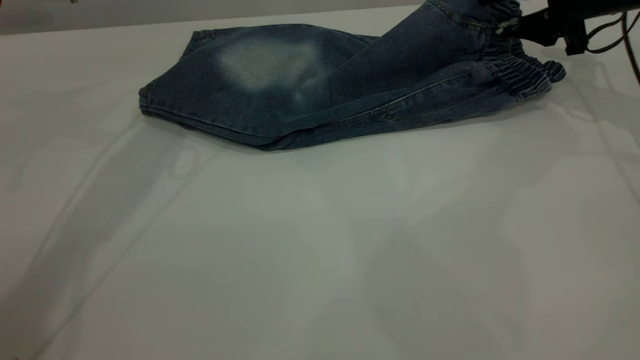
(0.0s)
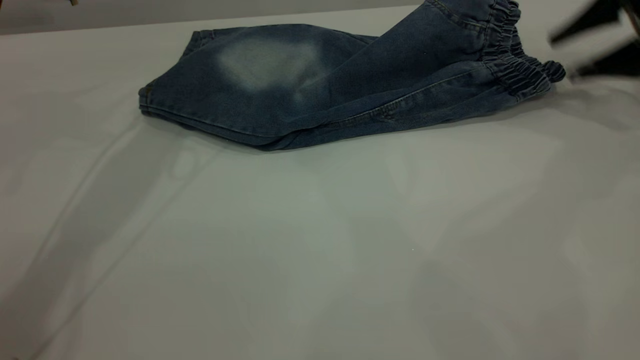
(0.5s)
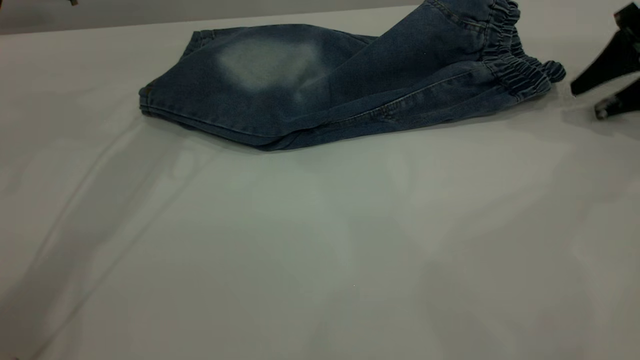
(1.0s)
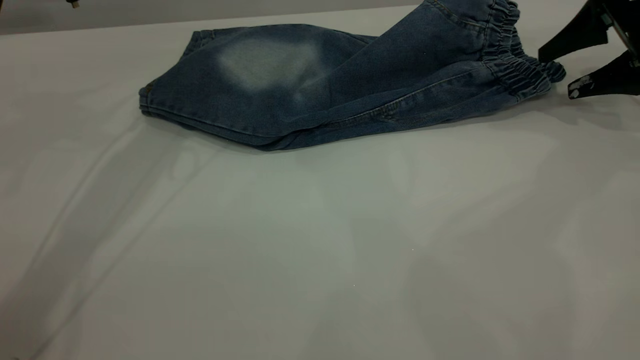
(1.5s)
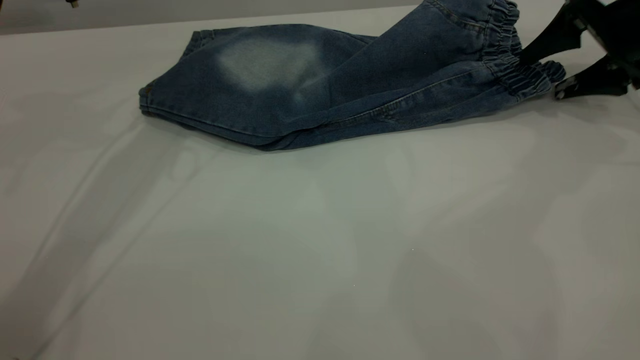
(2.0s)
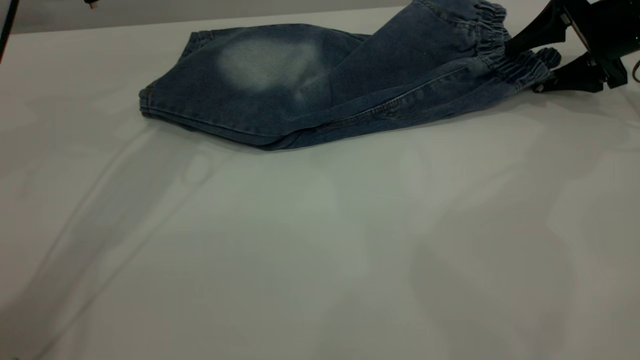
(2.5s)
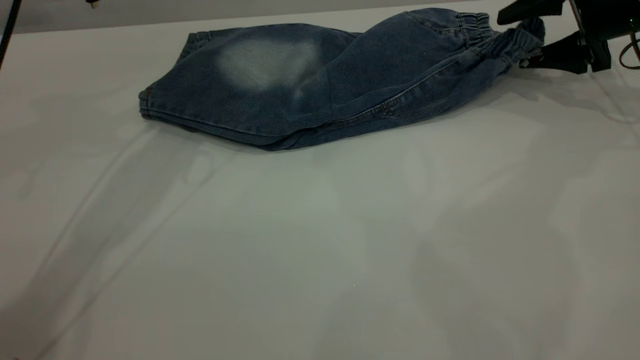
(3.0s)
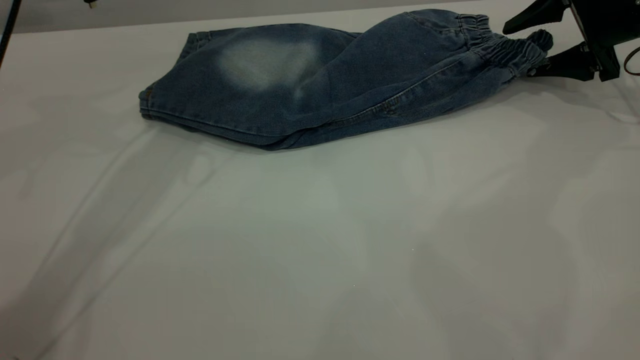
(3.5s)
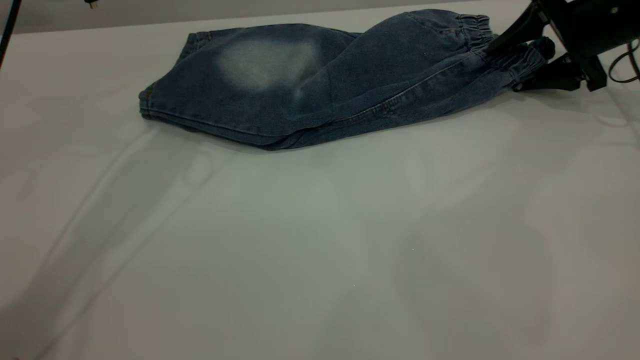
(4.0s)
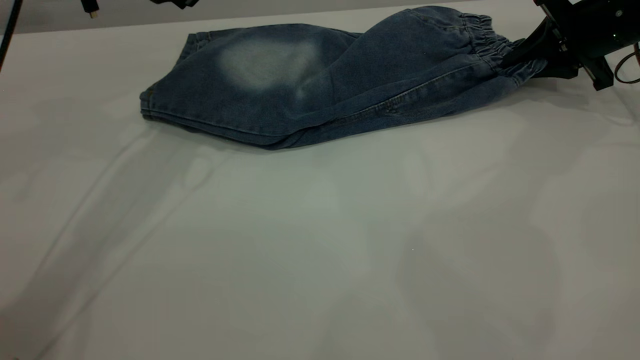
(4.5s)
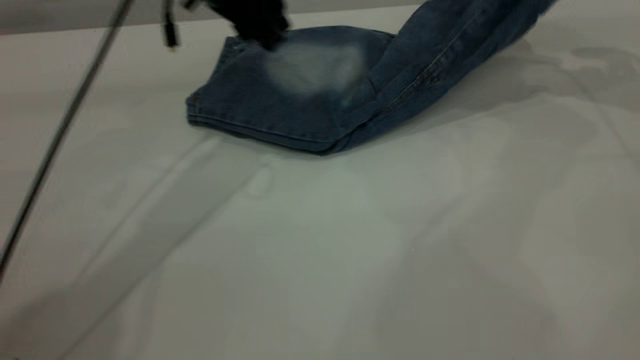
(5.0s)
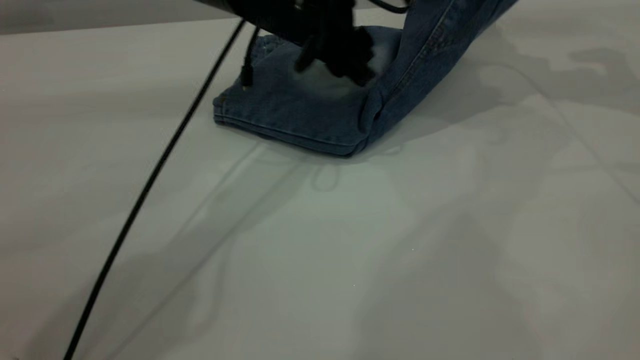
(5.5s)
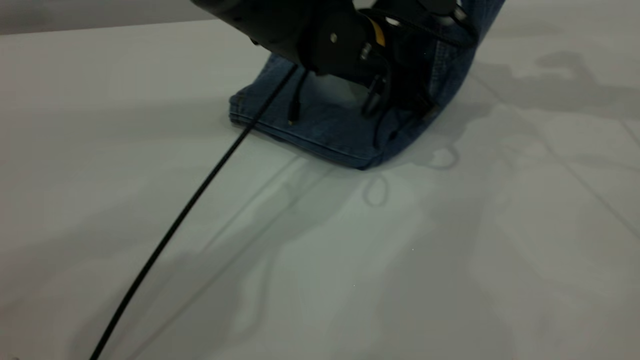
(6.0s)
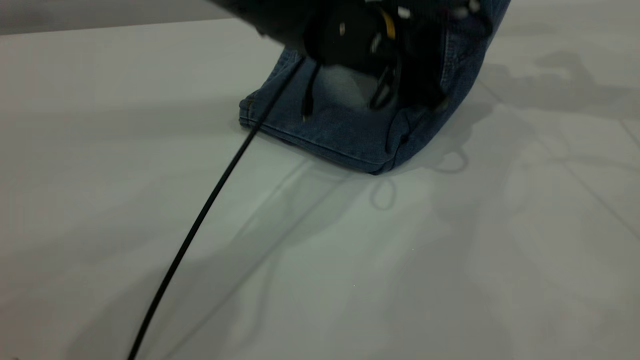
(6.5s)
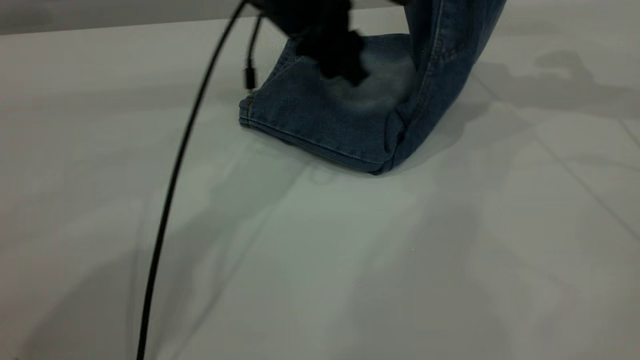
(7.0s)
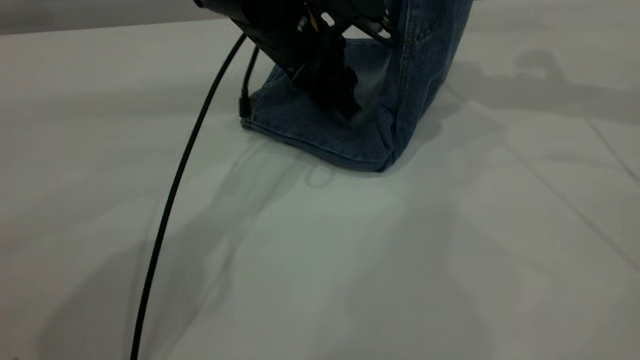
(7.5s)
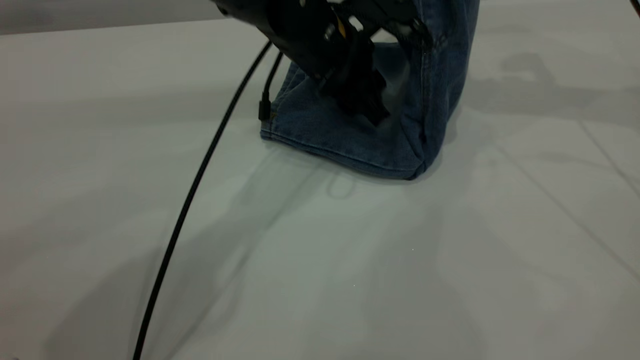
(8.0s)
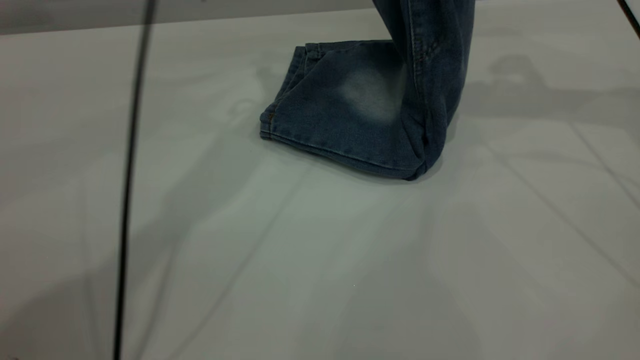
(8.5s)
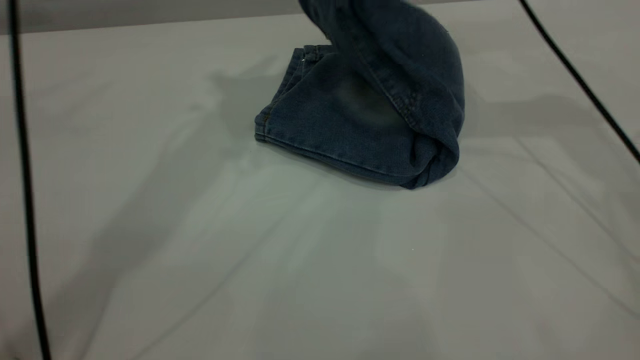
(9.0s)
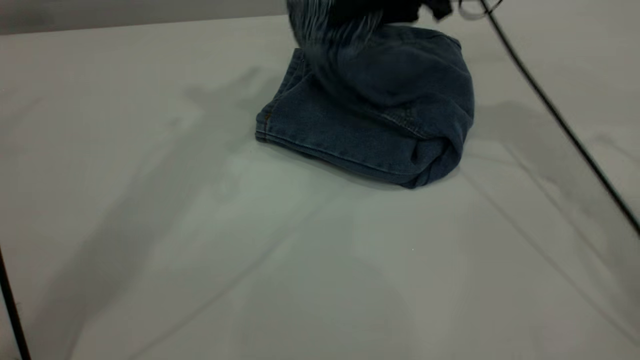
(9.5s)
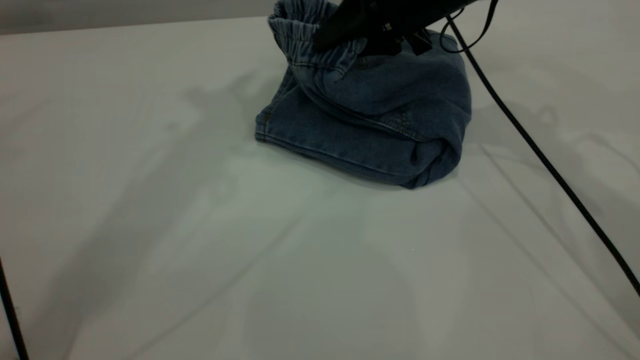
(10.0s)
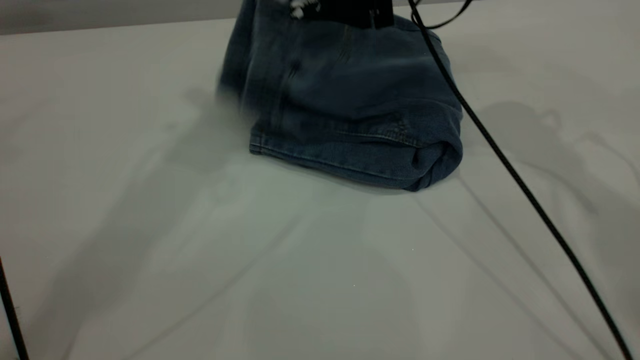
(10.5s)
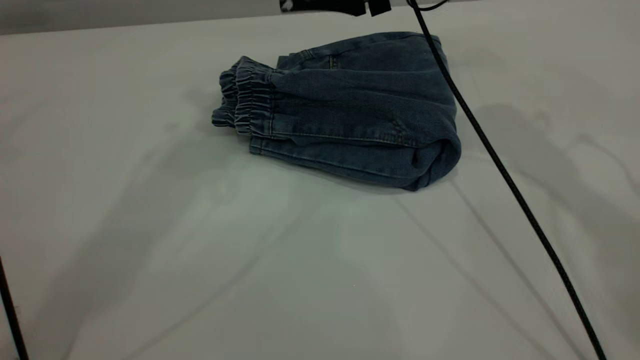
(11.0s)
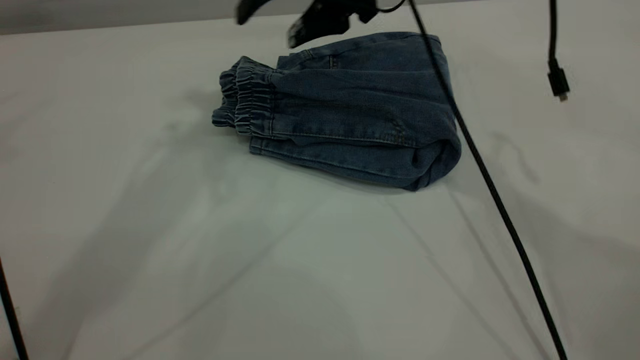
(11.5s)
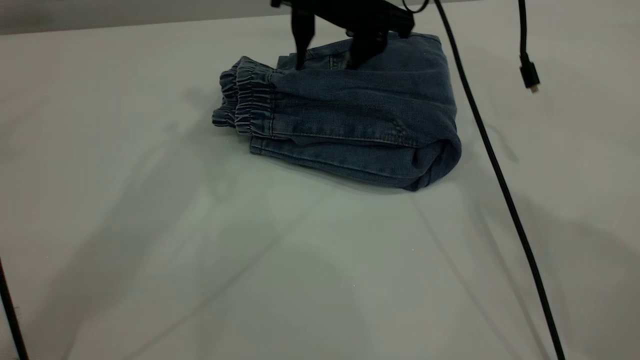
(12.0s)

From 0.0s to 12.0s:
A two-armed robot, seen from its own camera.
Step, from 0.0s to 10.5s: Fold your pants from right to left.
From 0.0s to 2.0s: The right gripper opens.
From 2.0s to 4.0s: The grippers make only small movements.
From 4.0s to 6.0s: The left gripper moves to the right and downward, some 25 cm. The right gripper shifts approximately 15 cm upward, and closes its fingers.
From 8.0s to 10.0s: The right gripper goes roughly 15 cm to the left and downward; the left gripper goes approximately 35 cm upward.
From 10.0s to 12.0s: The right gripper heads to the left, covering some 5 cm, and opens its fingers.

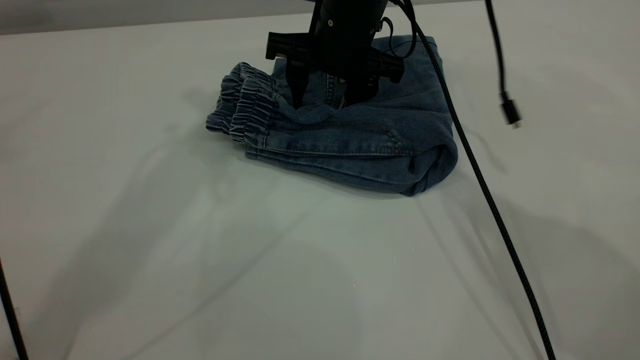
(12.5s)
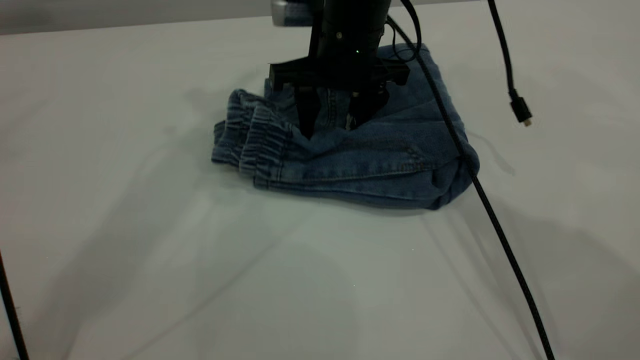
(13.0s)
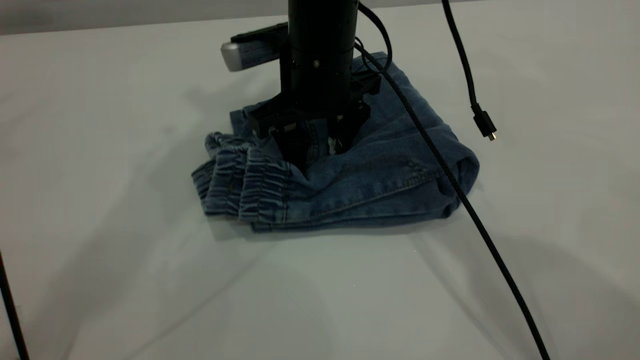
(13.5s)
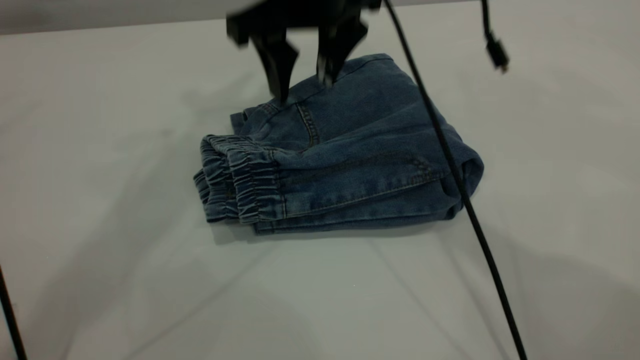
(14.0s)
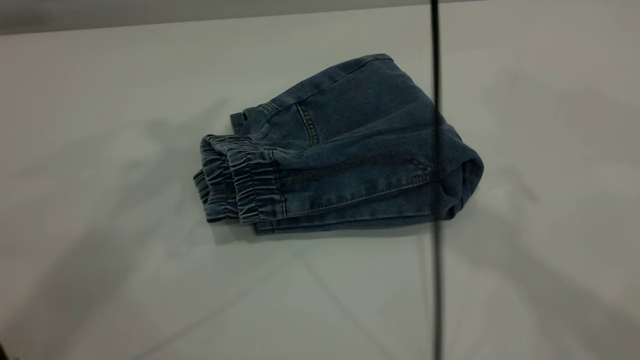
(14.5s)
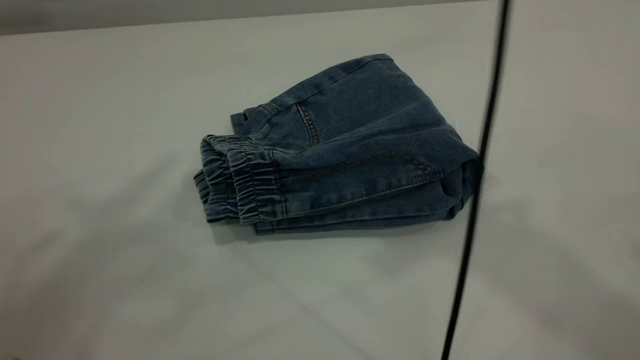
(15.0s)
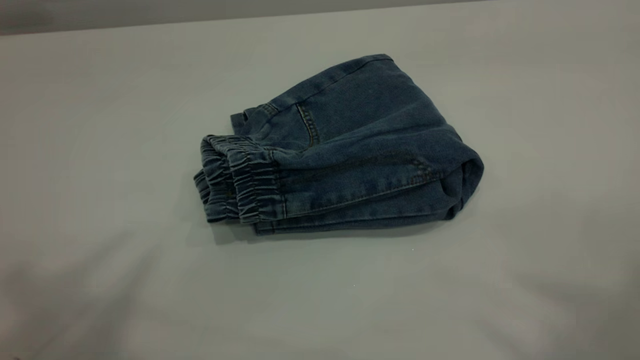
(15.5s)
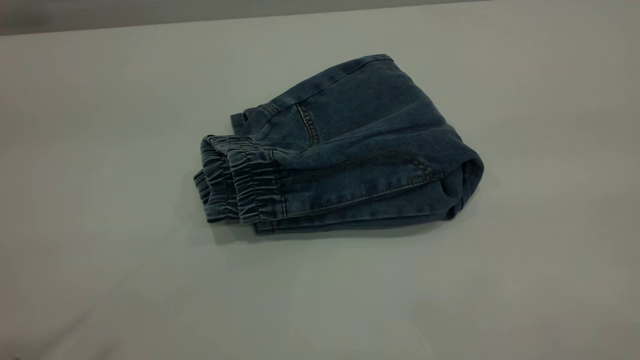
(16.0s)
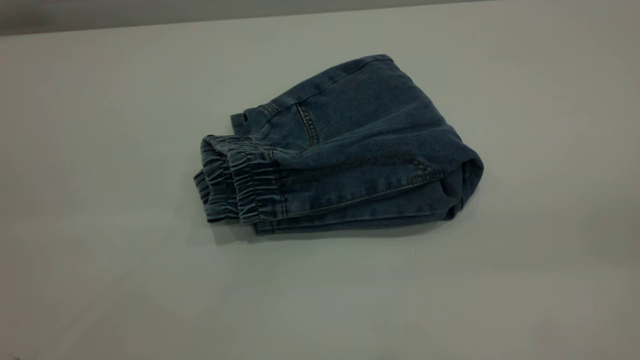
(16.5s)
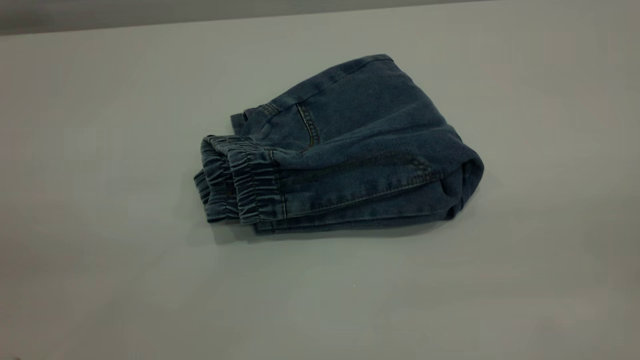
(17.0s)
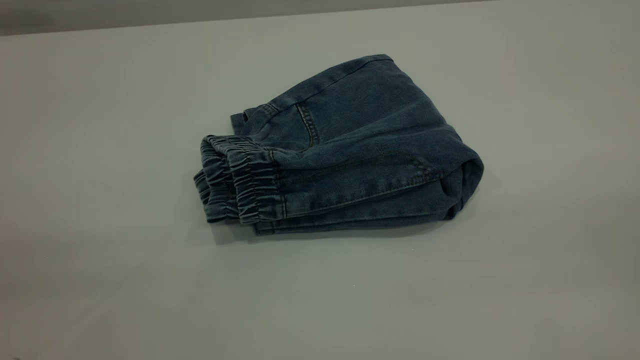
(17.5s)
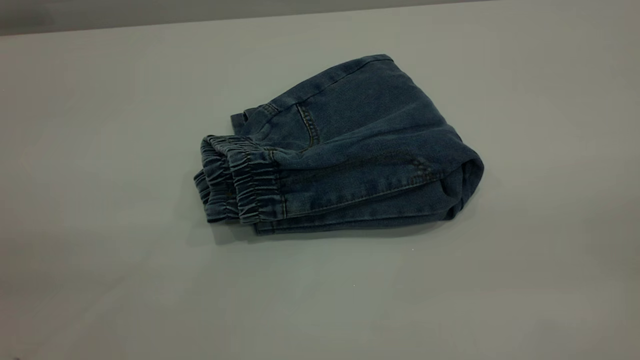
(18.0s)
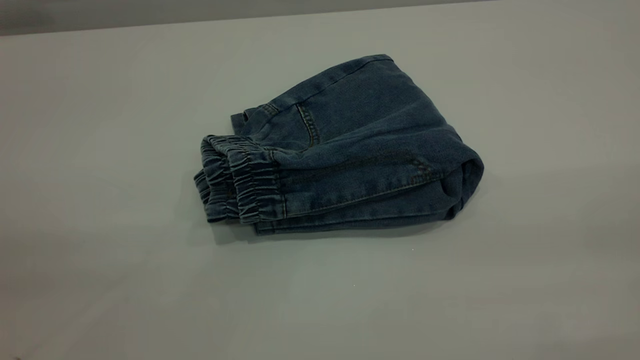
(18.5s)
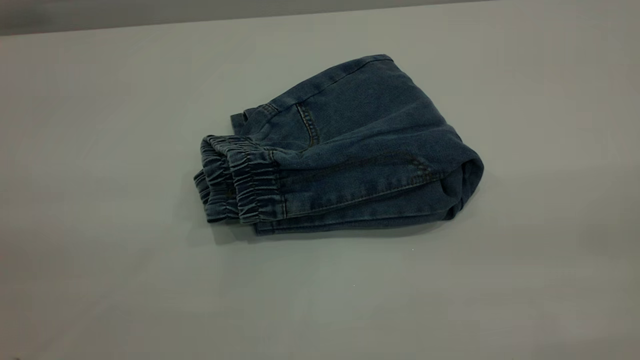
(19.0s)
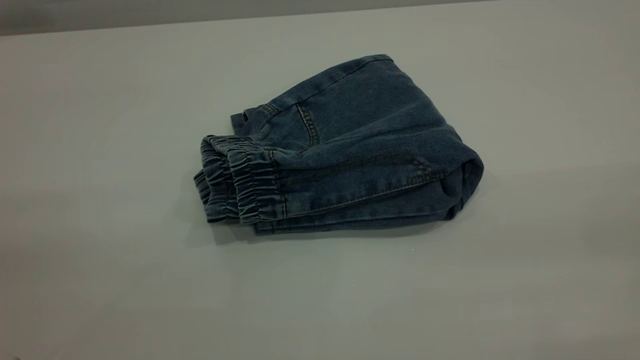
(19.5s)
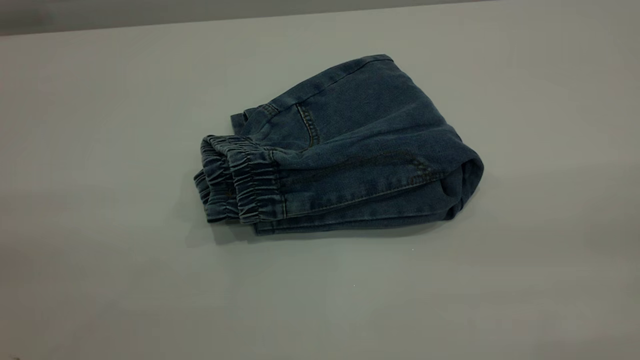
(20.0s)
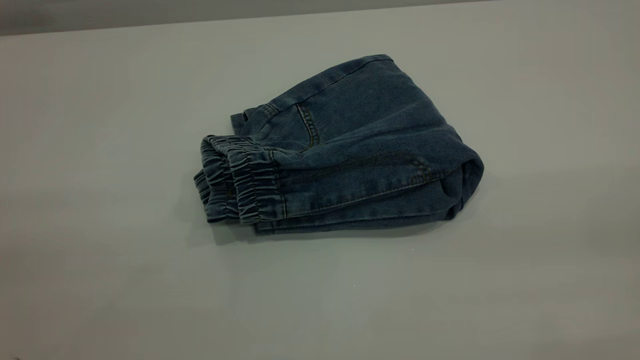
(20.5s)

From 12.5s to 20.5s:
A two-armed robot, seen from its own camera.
From 12.5s to 14.5s: The left gripper goes approximately 10 cm upward and backward. The right gripper travels upward by about 25 cm.
From 14.5s to 16.5s: The right gripper goes about 40 cm backward and to the right.
